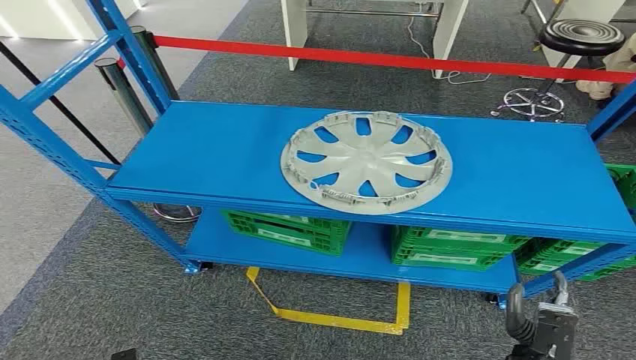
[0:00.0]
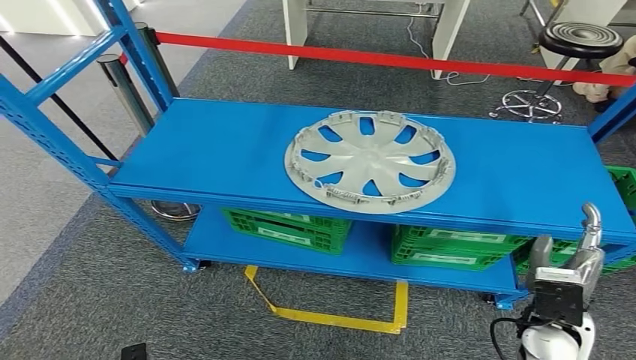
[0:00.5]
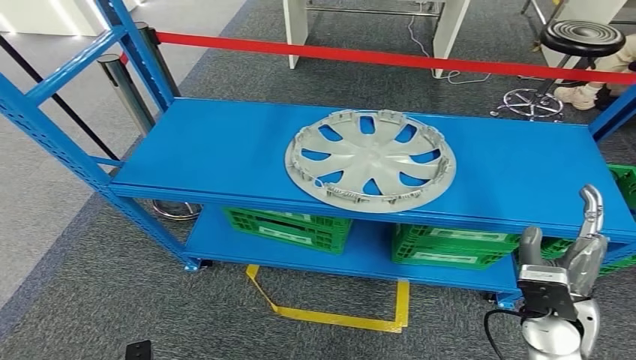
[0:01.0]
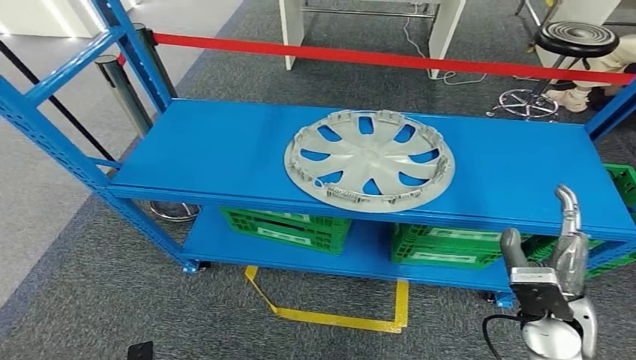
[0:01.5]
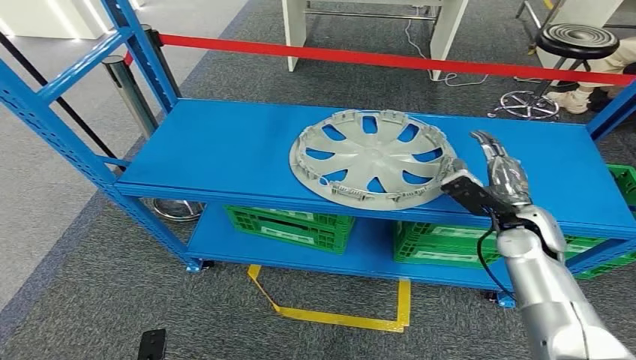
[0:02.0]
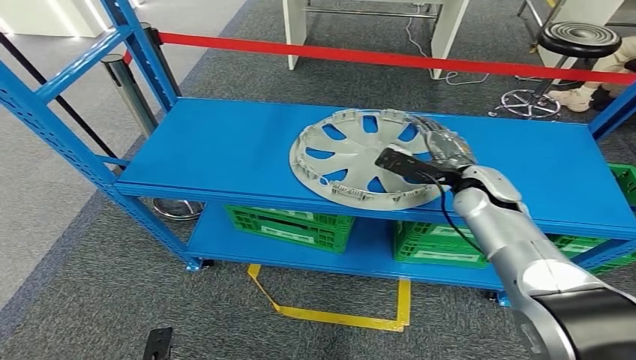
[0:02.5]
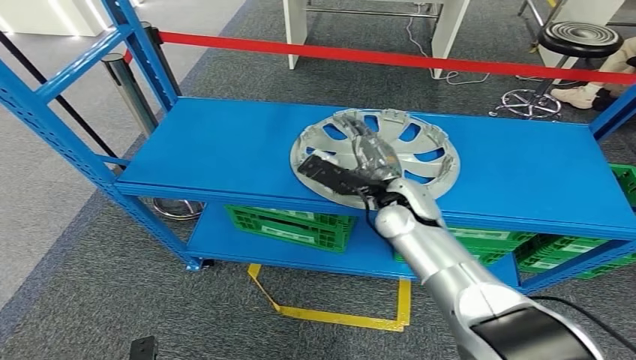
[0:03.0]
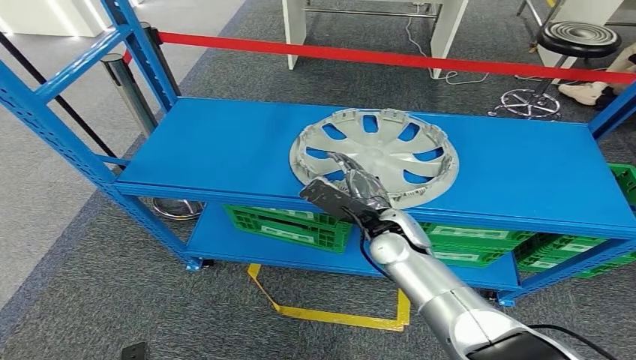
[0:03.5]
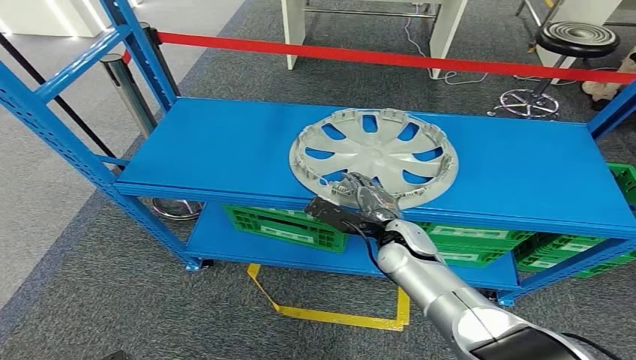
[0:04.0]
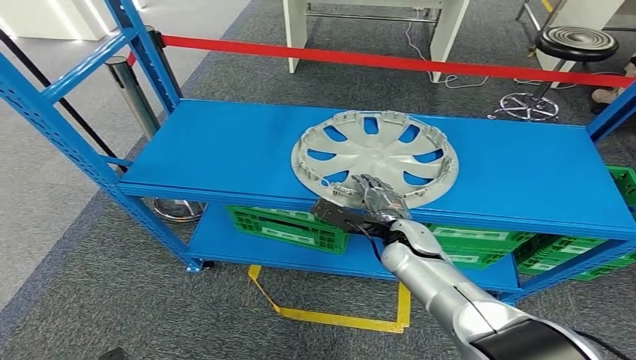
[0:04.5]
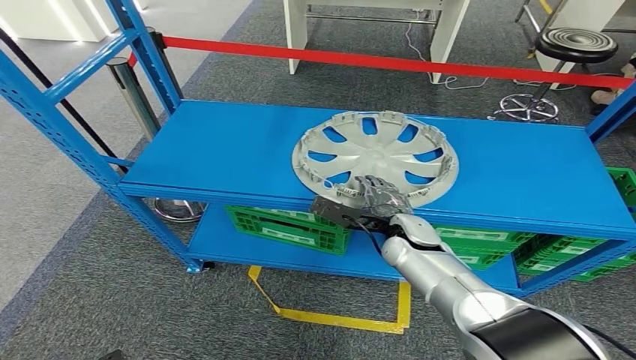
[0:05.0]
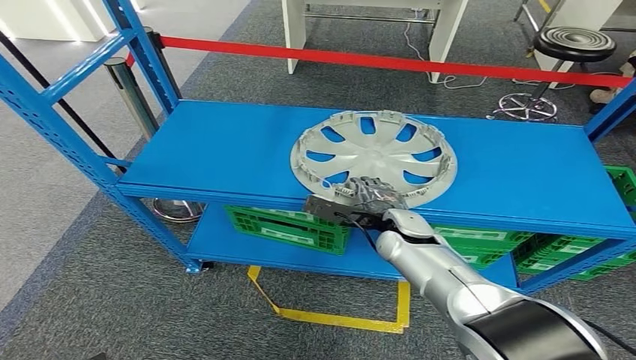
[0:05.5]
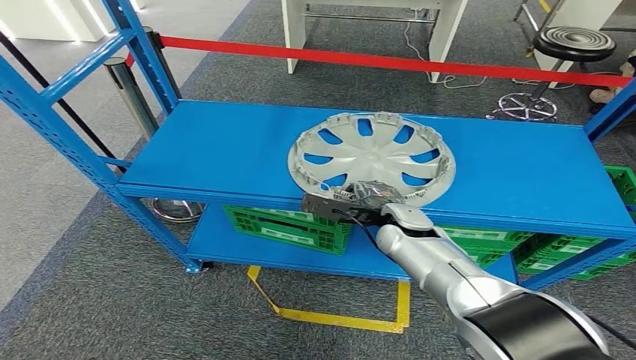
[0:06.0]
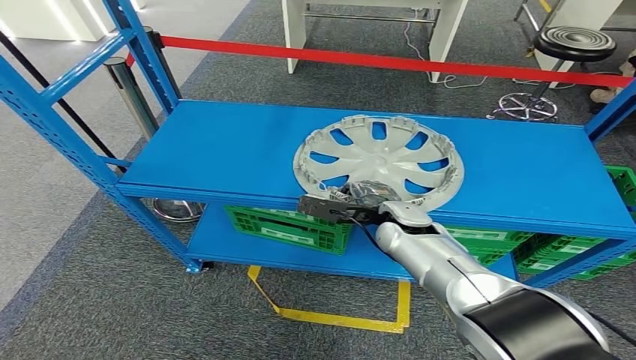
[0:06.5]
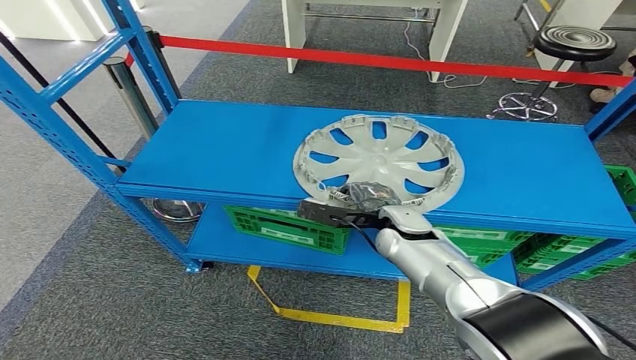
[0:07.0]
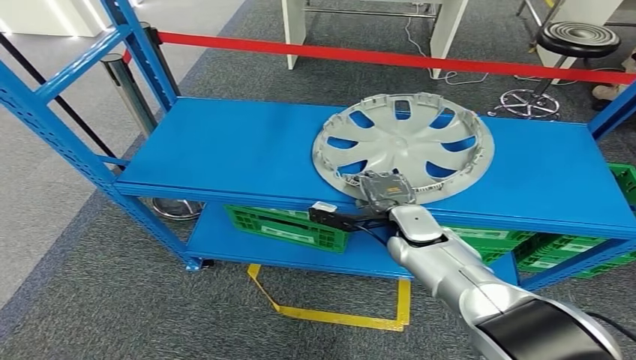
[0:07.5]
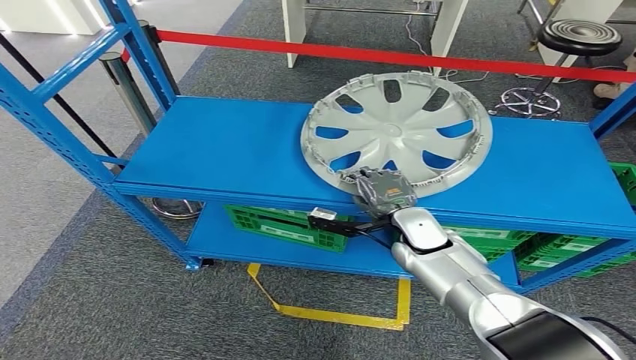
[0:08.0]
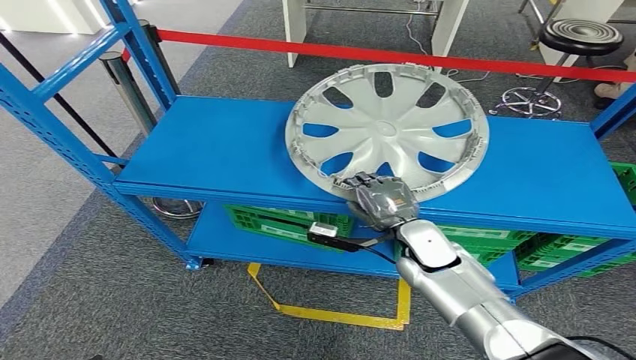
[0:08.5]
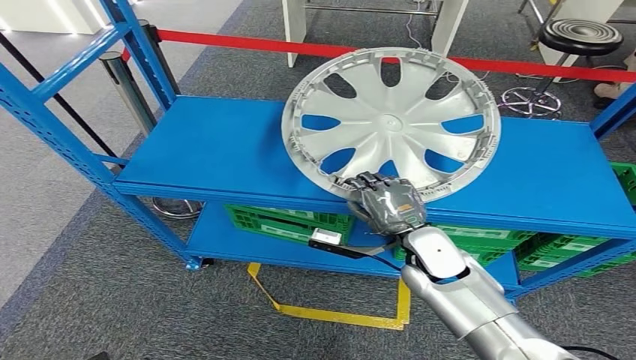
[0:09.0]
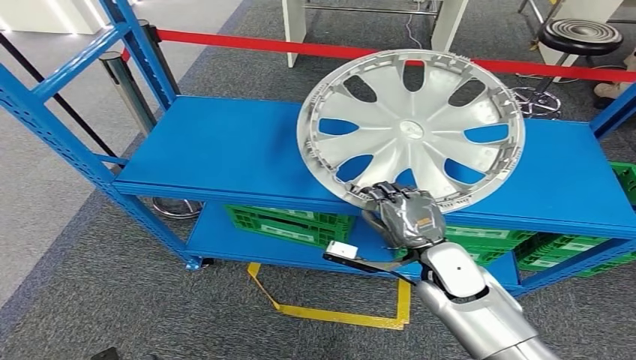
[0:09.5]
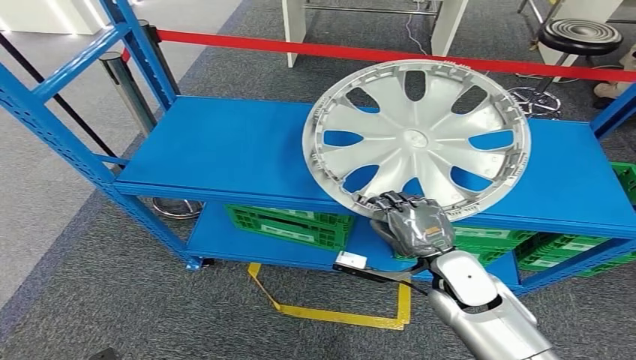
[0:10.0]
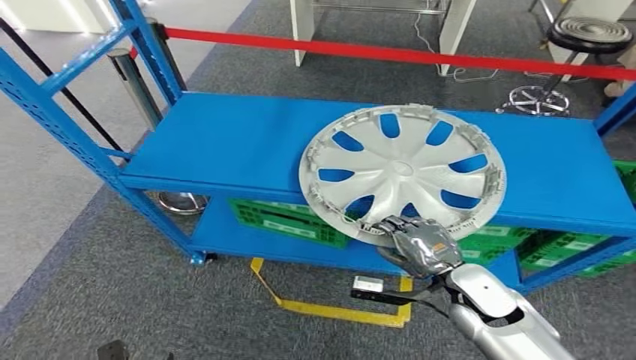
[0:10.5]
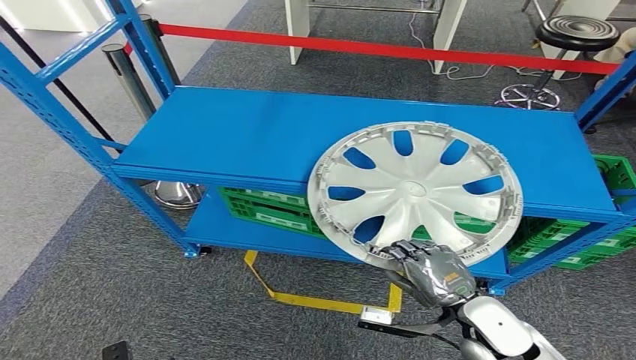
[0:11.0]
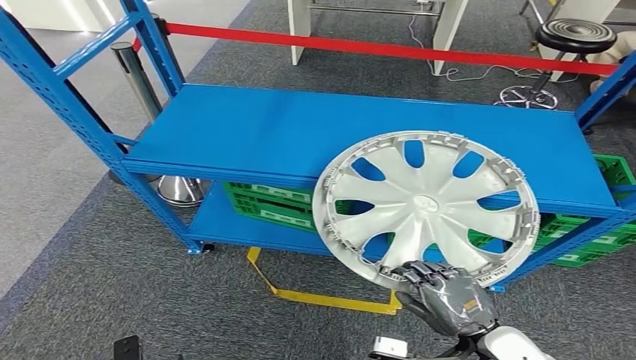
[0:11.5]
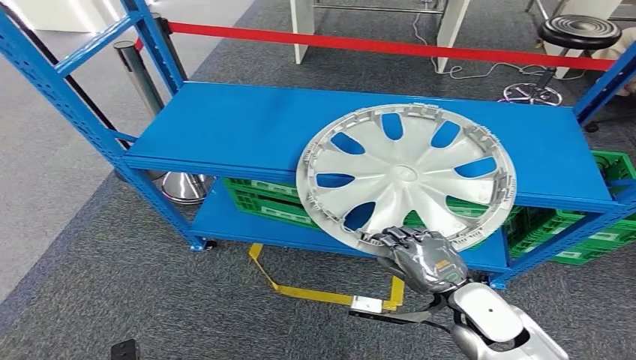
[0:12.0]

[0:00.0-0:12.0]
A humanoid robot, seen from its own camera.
Step, 0:00.0 to 0:09.5: Pick up the small component from the shelf.
0:02.0 to 0:04.0: The right hand is displaced to the left by about 20 cm.
0:08.0 to 0:10.0: The right hand heads backward, covering about 10 cm.

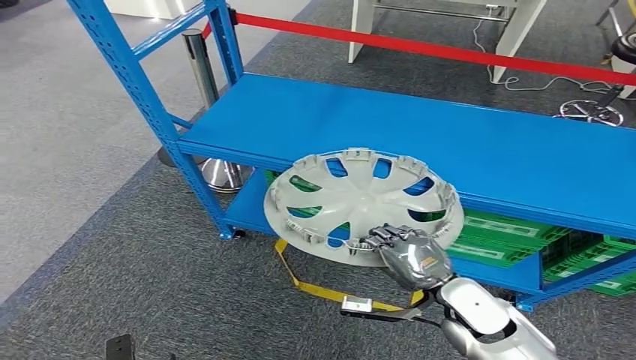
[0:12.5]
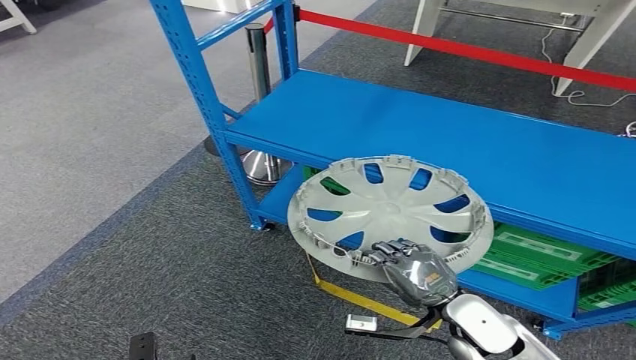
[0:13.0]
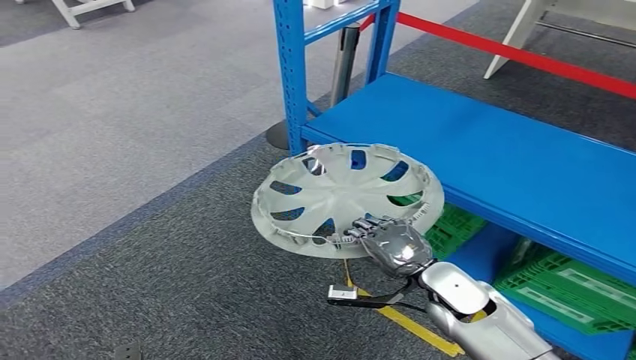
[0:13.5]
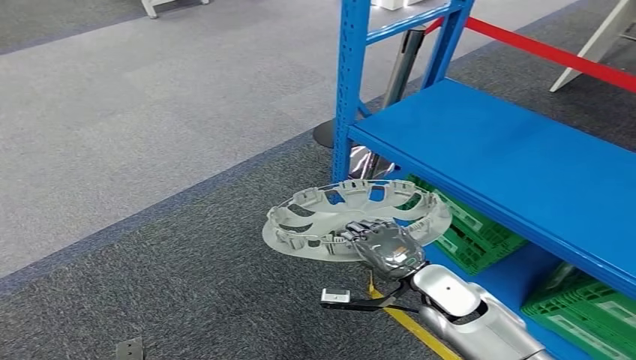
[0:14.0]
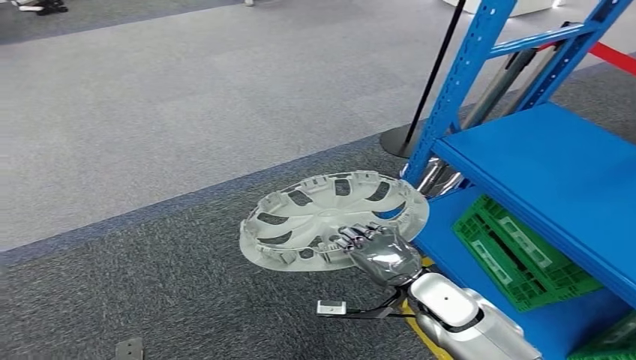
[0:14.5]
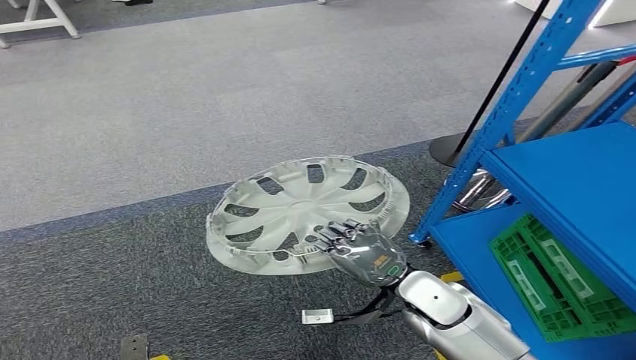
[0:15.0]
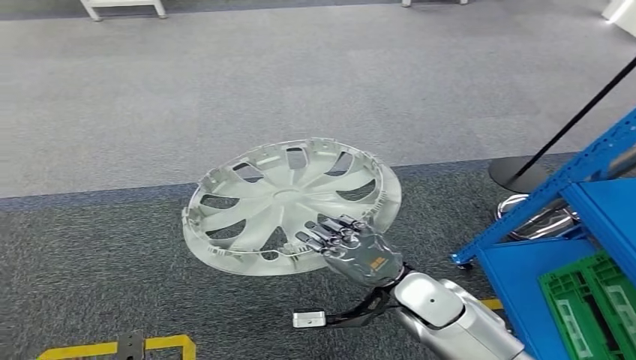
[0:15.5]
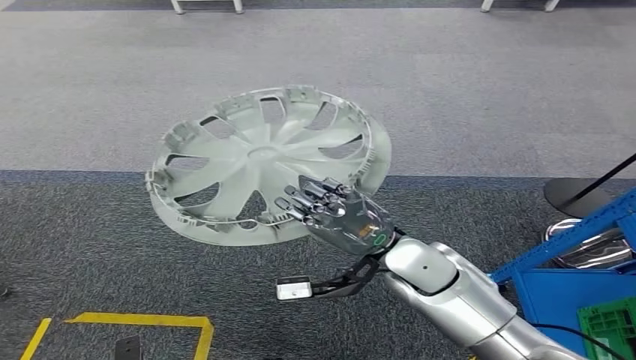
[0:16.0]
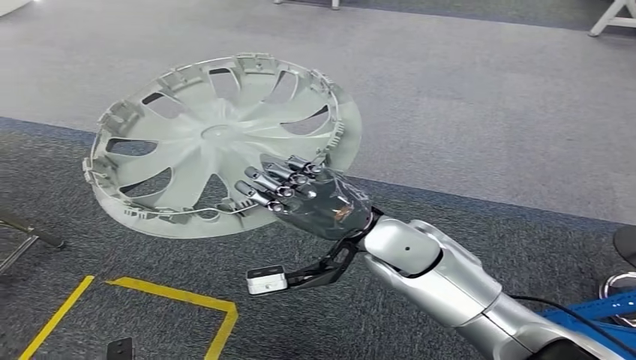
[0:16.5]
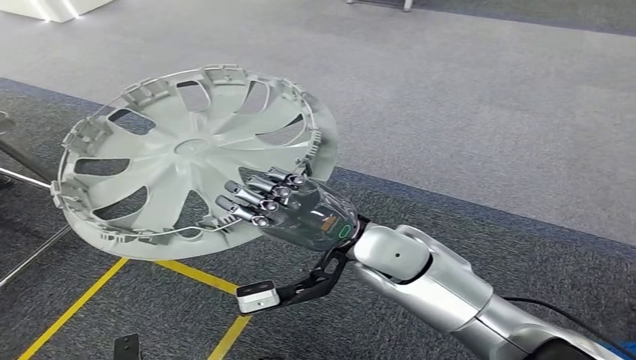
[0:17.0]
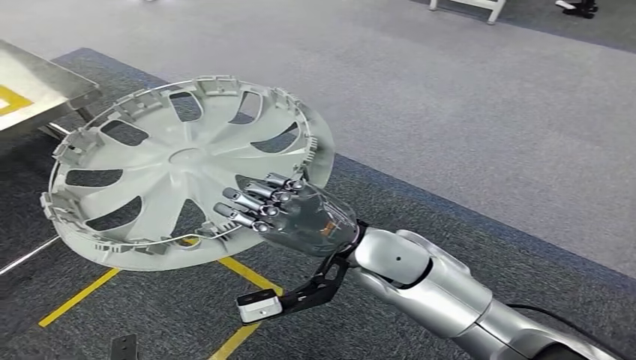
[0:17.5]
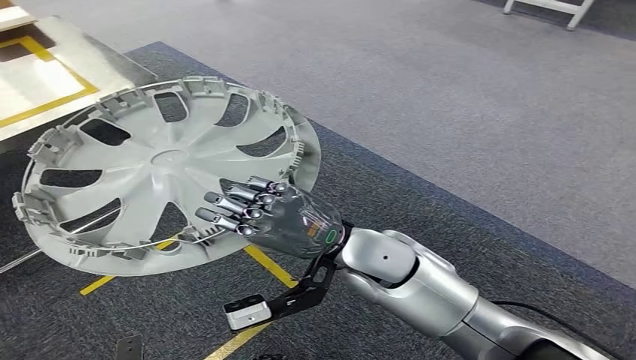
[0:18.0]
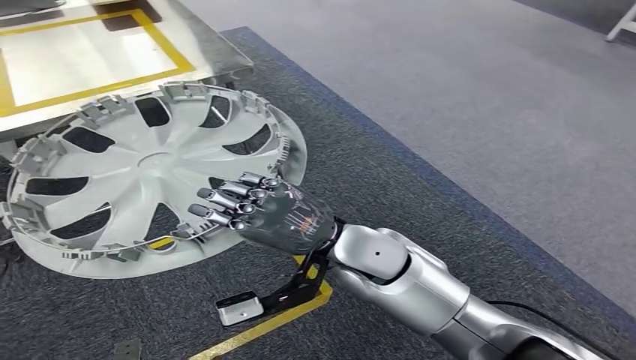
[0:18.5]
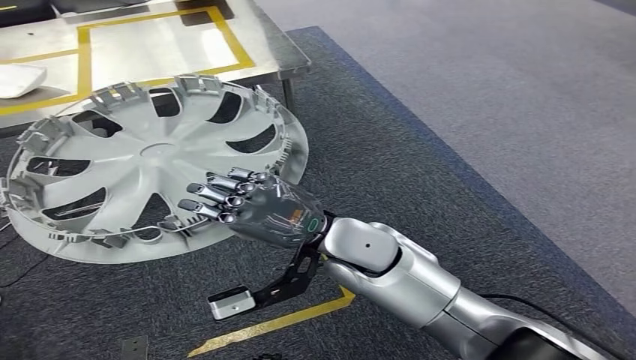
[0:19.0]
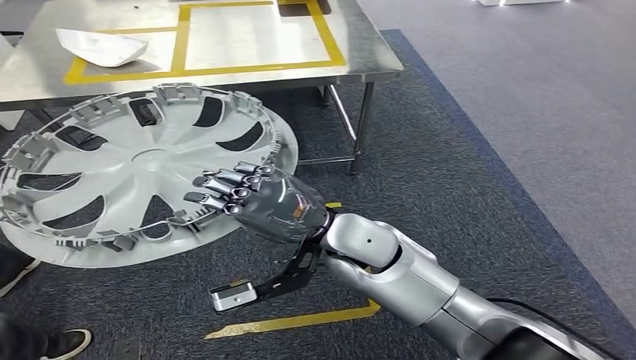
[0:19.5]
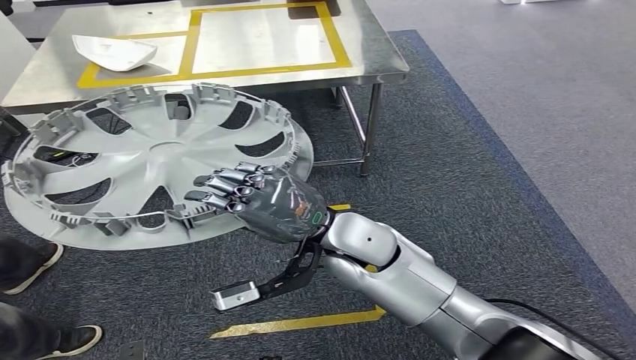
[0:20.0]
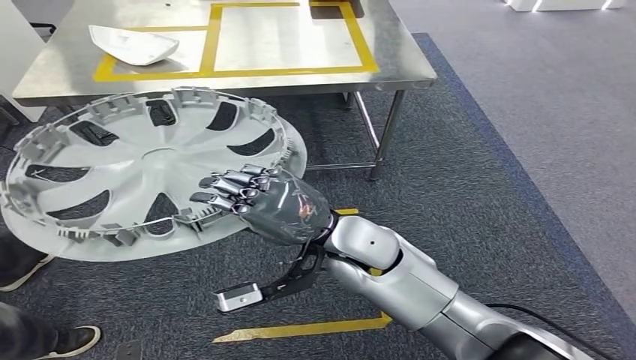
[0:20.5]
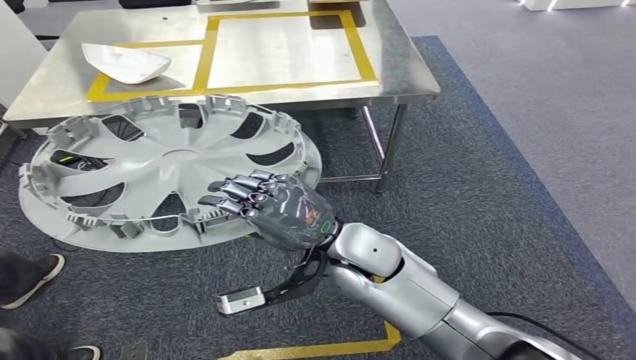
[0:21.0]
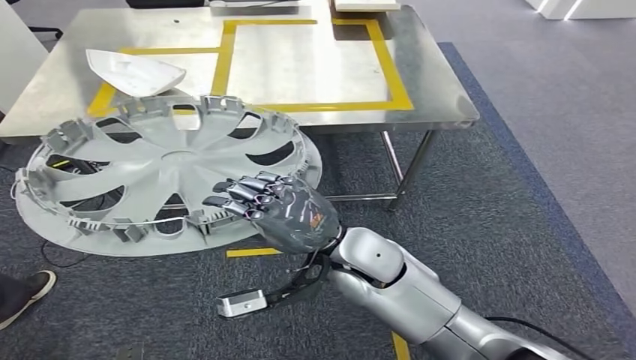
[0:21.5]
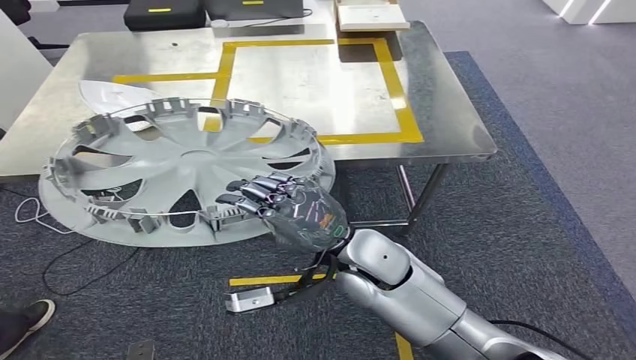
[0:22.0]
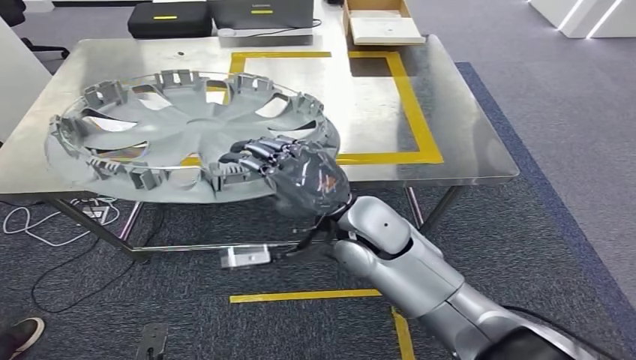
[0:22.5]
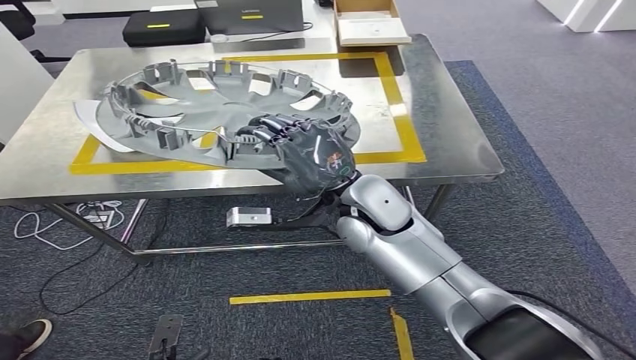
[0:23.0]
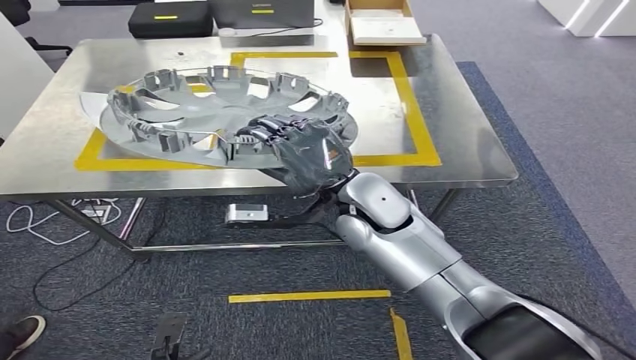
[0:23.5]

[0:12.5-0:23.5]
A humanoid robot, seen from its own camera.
Step, 0:12.5 to 0:21.5: Bring the small component to the front of the workbench.
